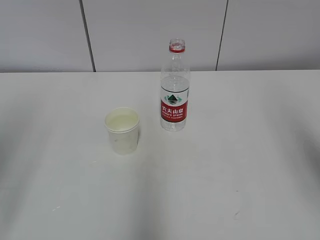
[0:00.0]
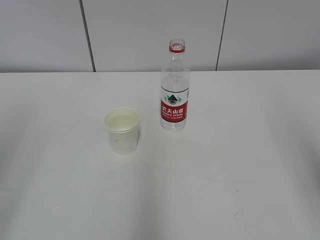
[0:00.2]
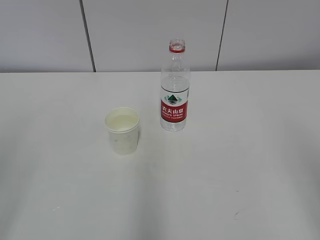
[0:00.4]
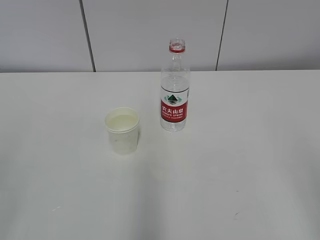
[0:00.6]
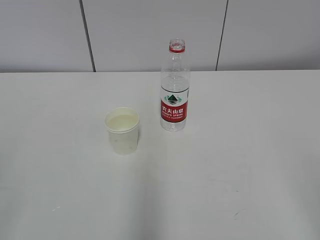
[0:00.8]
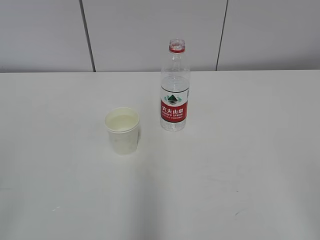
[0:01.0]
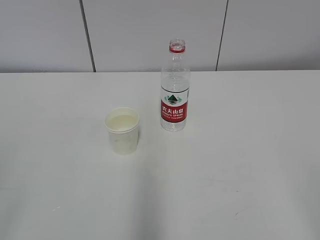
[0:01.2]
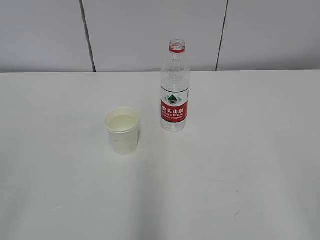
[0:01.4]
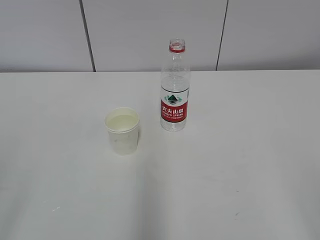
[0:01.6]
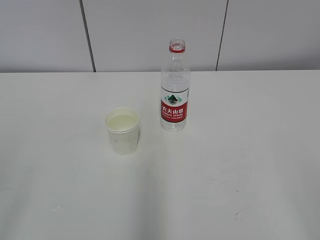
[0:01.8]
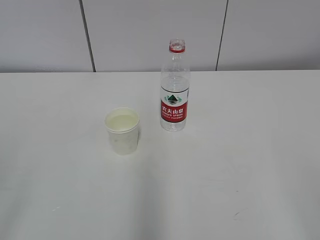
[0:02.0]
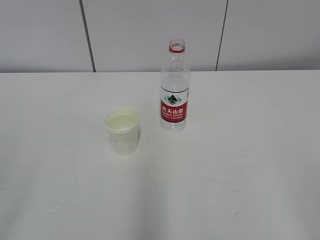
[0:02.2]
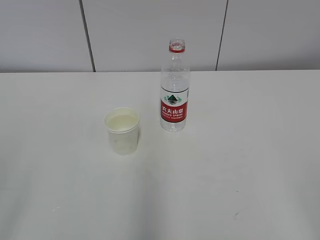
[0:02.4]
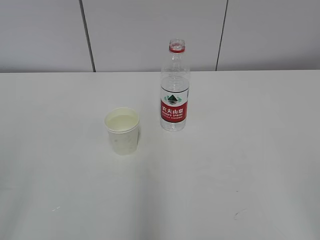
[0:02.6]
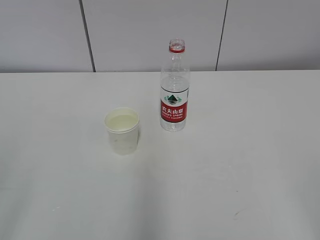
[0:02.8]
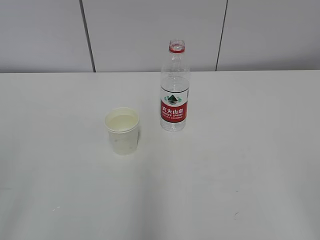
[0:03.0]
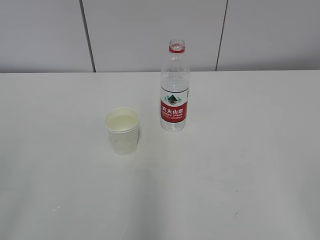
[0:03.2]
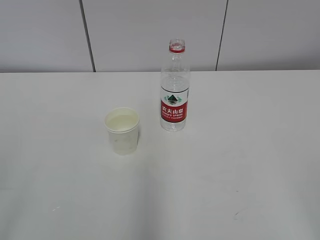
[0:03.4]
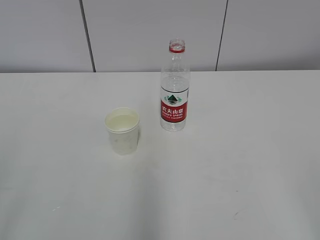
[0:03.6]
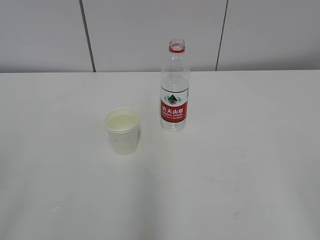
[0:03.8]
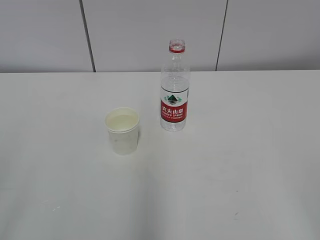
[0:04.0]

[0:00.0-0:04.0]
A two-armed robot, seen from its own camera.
0:00.0 to 0:01.4: The right gripper moves backward and downward, some 20 cm.
0:02.6 to 0:04.0: Both grippers stay put.
